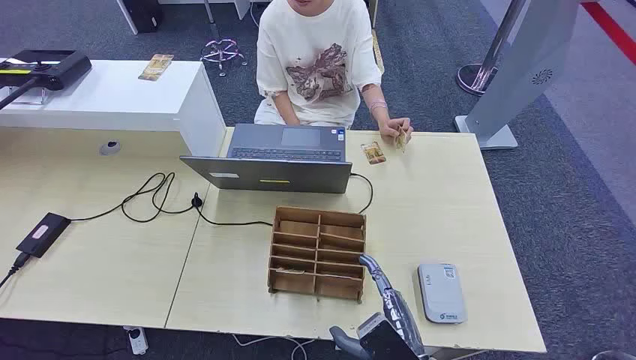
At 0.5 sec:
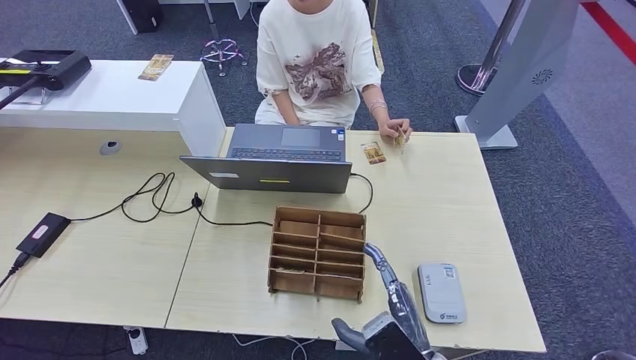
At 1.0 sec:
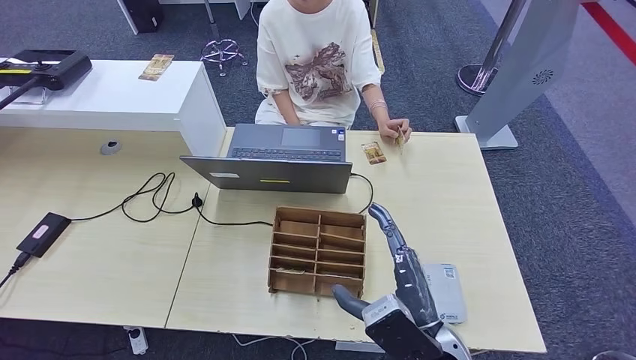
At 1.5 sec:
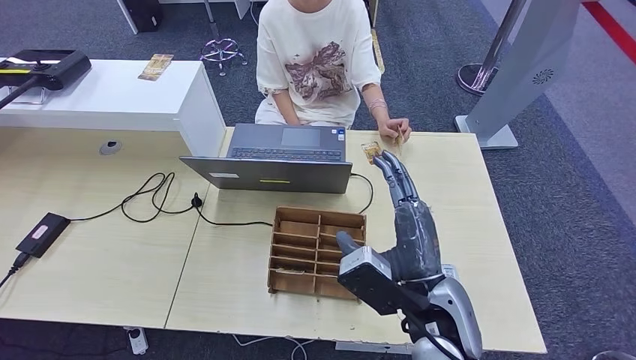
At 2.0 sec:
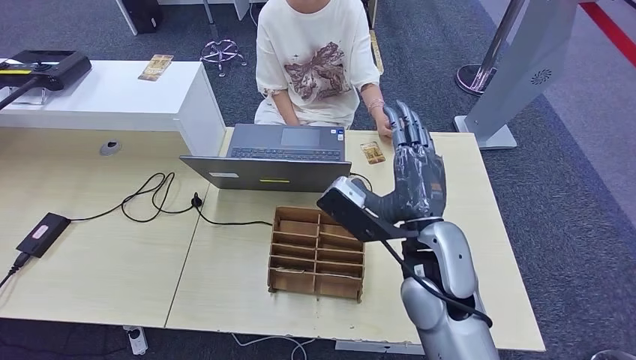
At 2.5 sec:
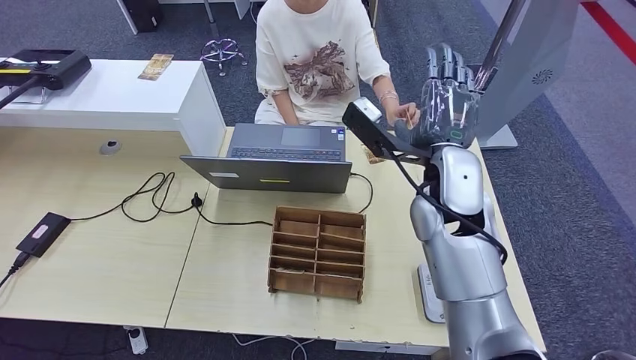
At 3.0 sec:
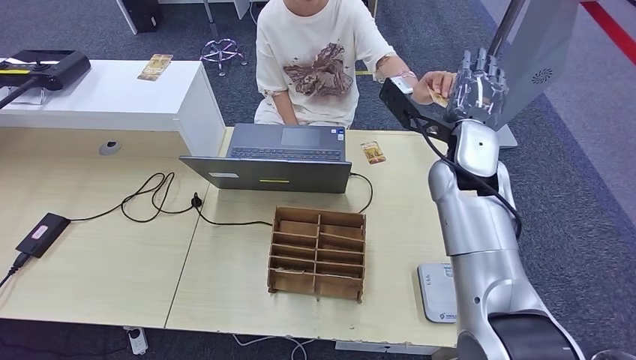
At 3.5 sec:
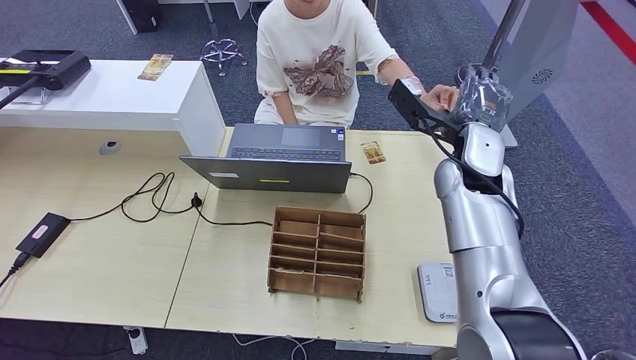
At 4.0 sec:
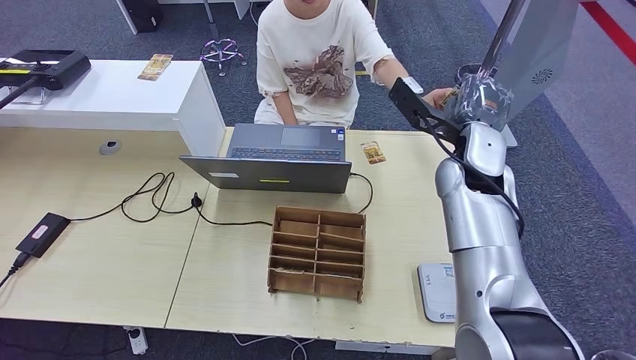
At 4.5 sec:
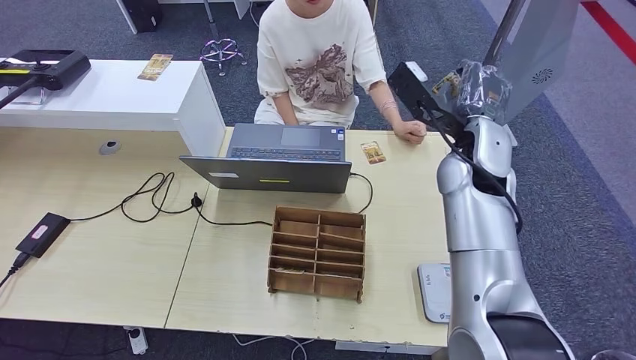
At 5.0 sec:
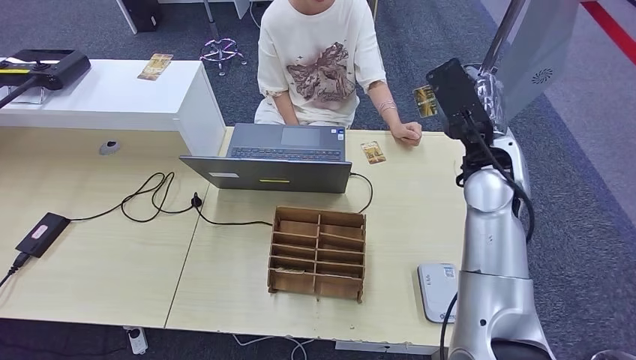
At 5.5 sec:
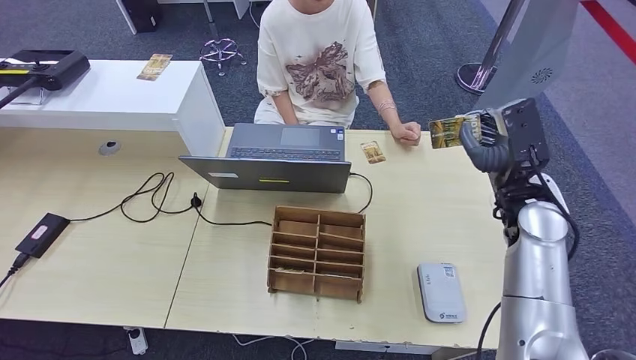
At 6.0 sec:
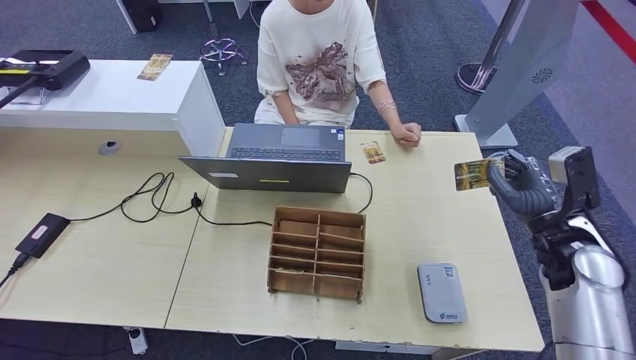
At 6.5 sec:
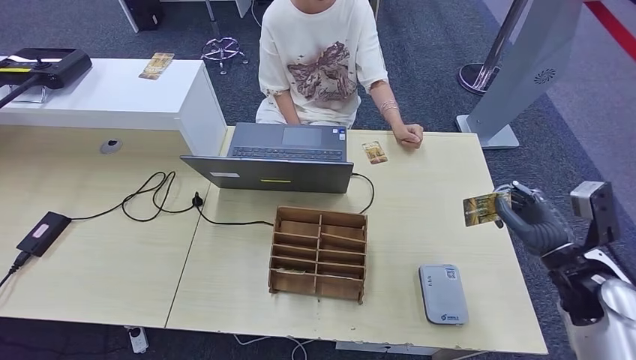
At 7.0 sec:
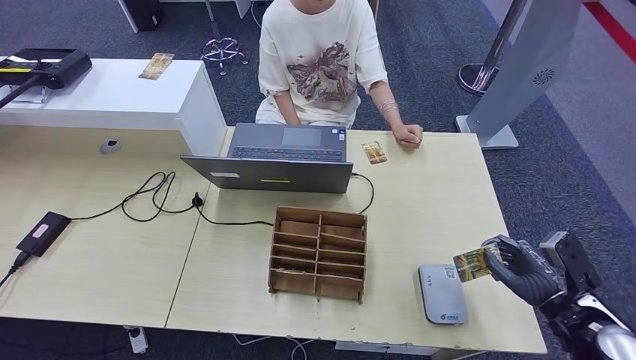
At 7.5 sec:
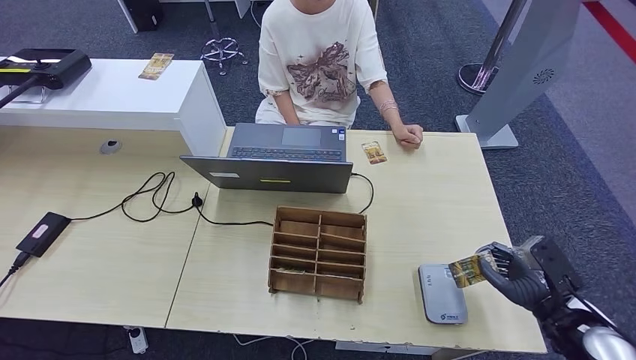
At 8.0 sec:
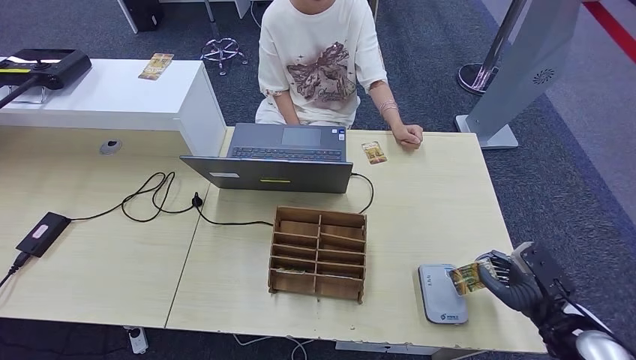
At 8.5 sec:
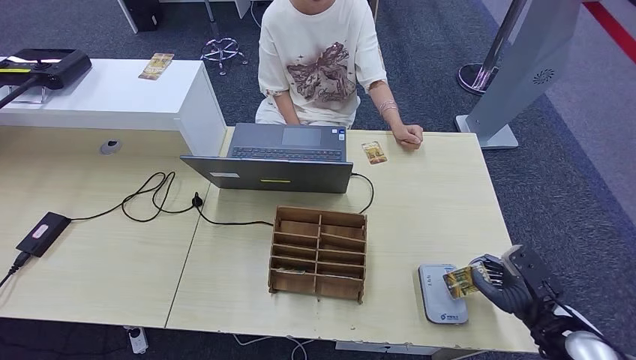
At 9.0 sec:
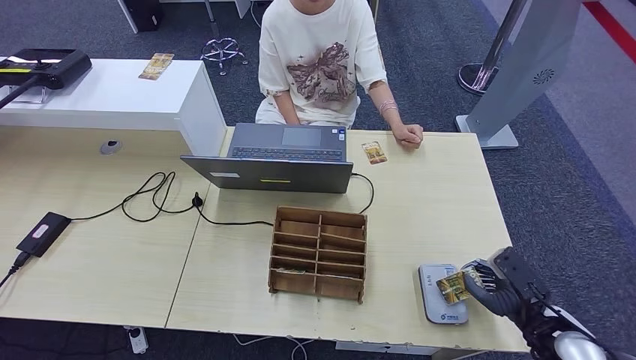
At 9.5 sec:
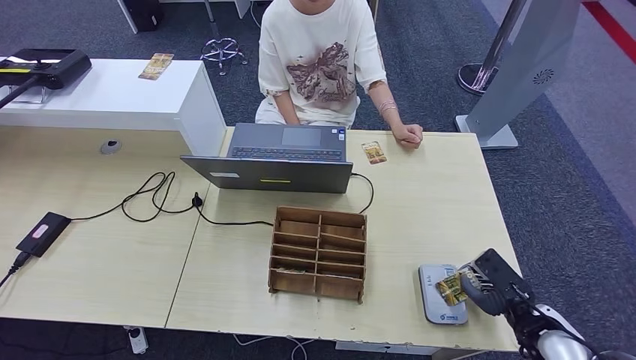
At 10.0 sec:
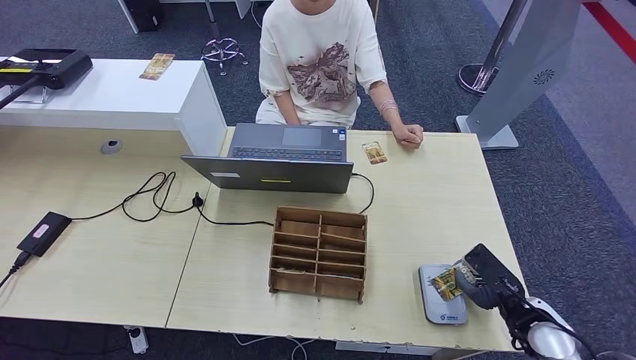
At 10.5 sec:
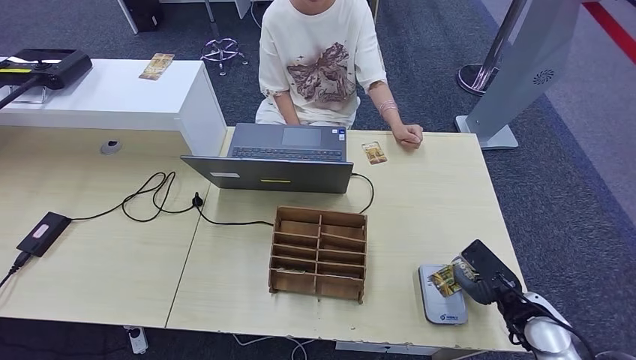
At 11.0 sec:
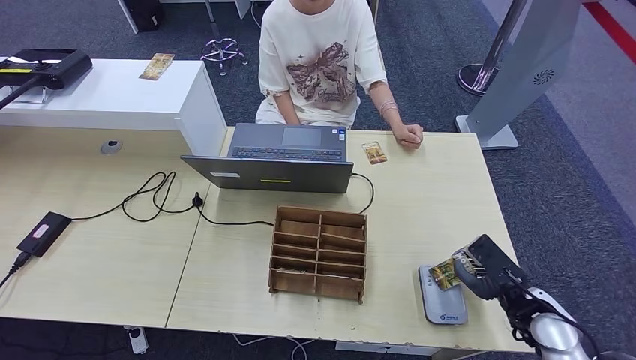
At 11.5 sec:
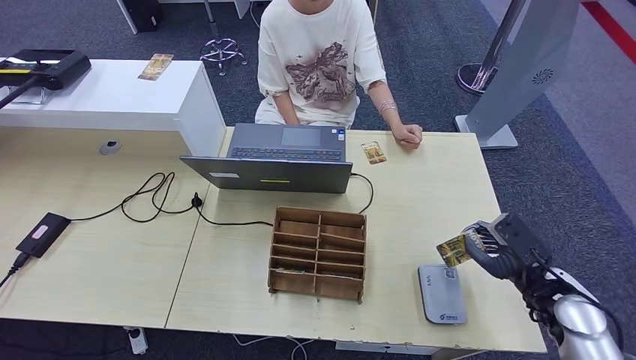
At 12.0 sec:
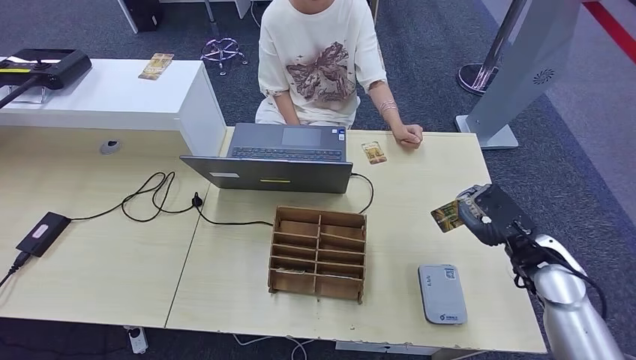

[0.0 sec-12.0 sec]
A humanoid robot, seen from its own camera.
Step, 0.0 sec to 6.5 sec: Take the ID card from the person's hand.
Step, 7.0 sec to 11.0 sec: Place the ID card on the card reader.
2.0 sec to 4.0 sec: The right hand heads forward and to the right, covering some 15 cm.
4.0 sec to 6.0 sec: The right hand travels to the right, downward and backward by approximately 25 cm.
6.0 sec to 8.0 sec: The right hand is displaced backward and downward by roughly 15 cm.
8.0 sec to 10.0 sec: The right hand changes place by approximately 5 cm.
10.0 sec to 12.0 sec: The right hand goes some 10 cm upward and forward.

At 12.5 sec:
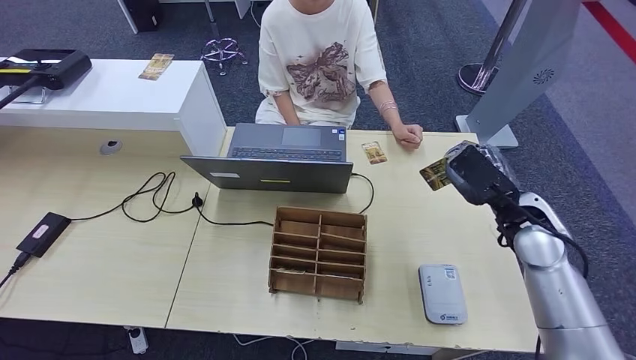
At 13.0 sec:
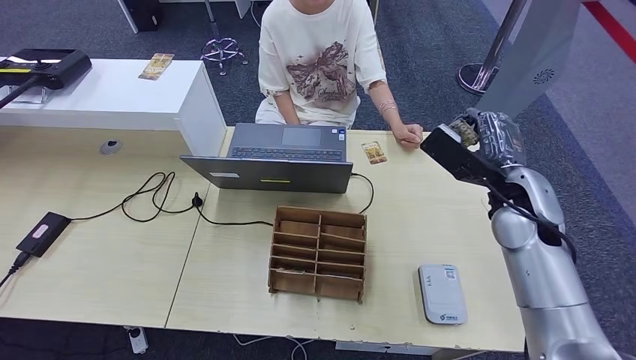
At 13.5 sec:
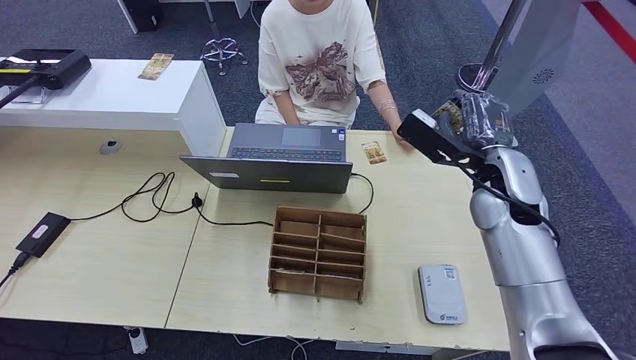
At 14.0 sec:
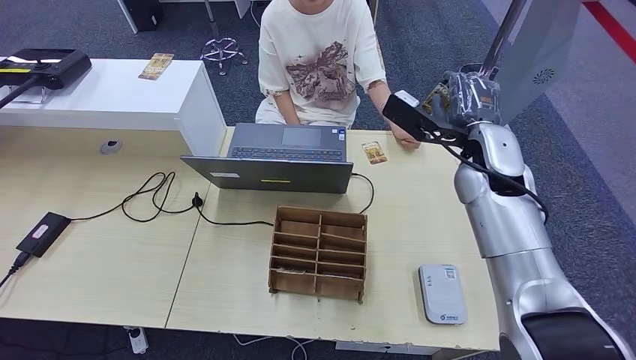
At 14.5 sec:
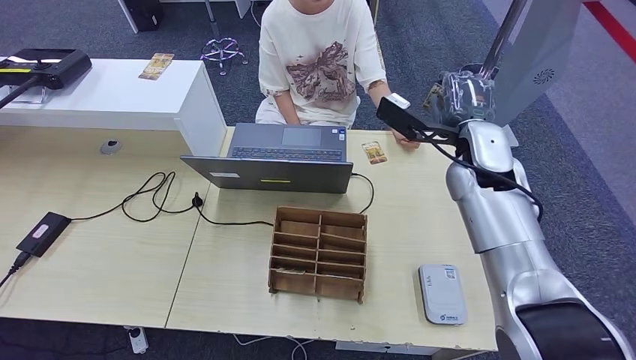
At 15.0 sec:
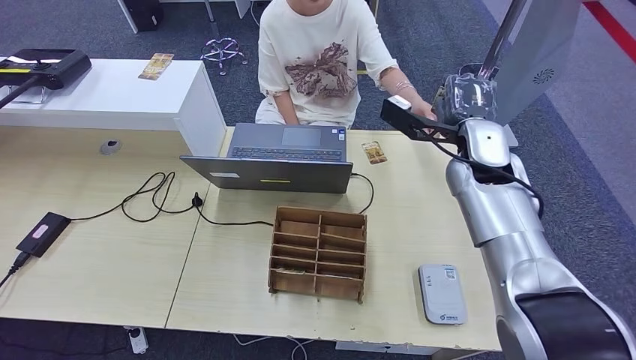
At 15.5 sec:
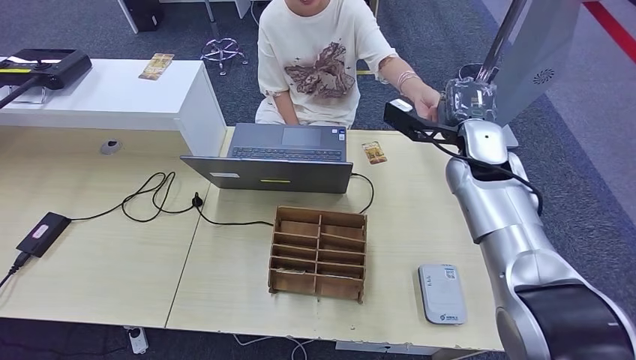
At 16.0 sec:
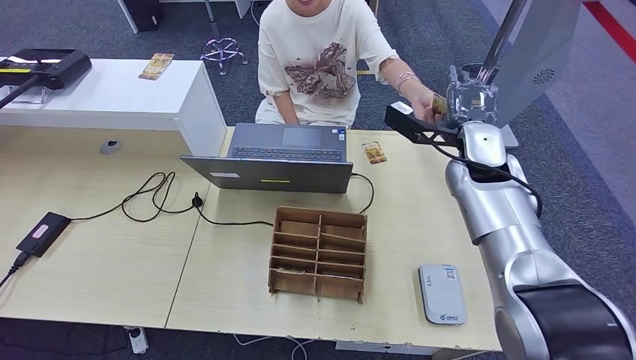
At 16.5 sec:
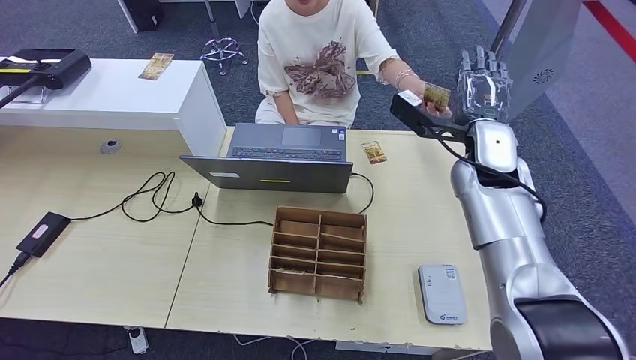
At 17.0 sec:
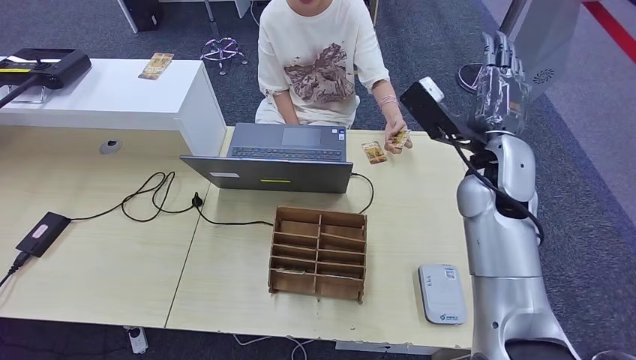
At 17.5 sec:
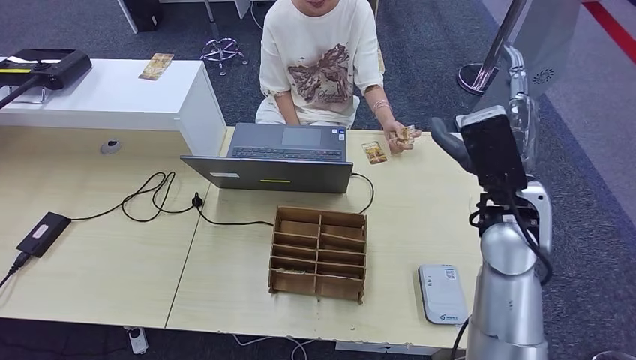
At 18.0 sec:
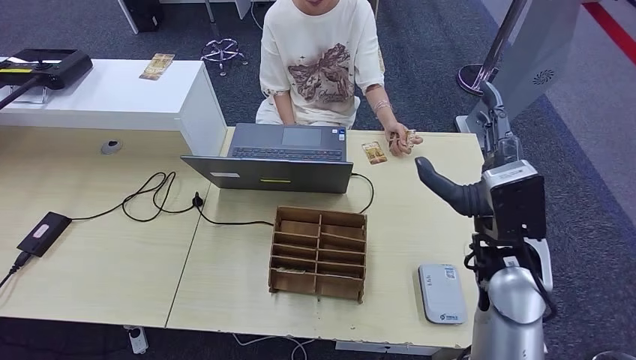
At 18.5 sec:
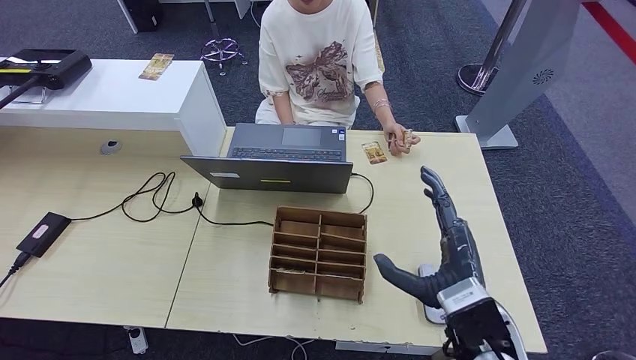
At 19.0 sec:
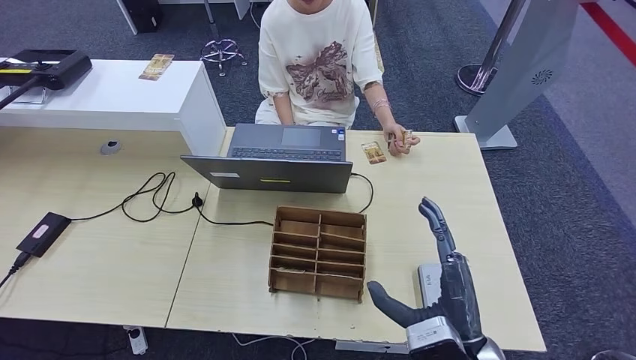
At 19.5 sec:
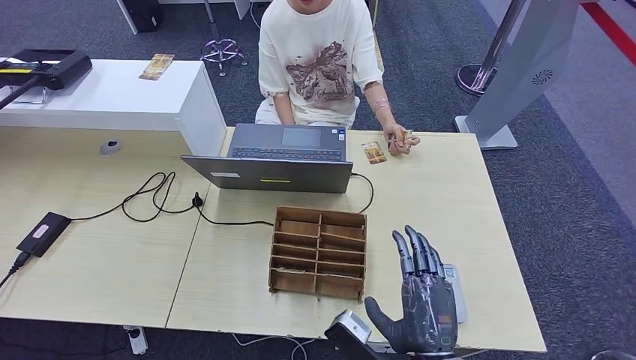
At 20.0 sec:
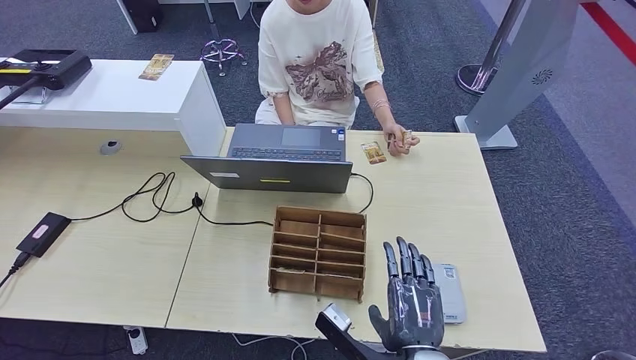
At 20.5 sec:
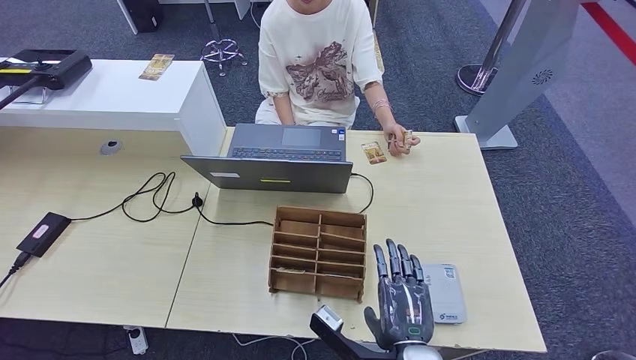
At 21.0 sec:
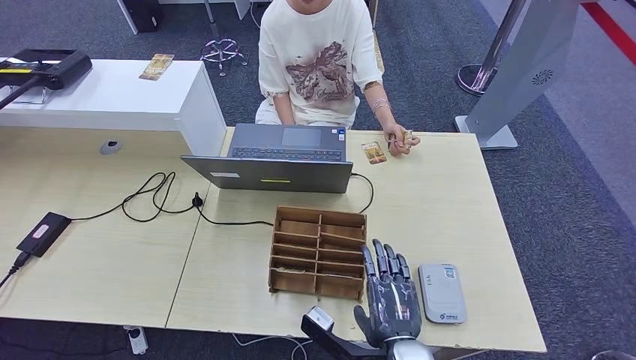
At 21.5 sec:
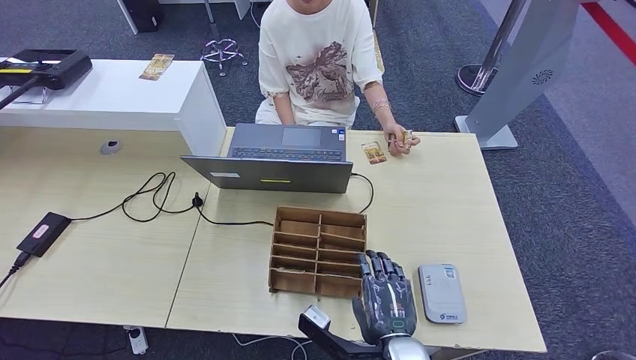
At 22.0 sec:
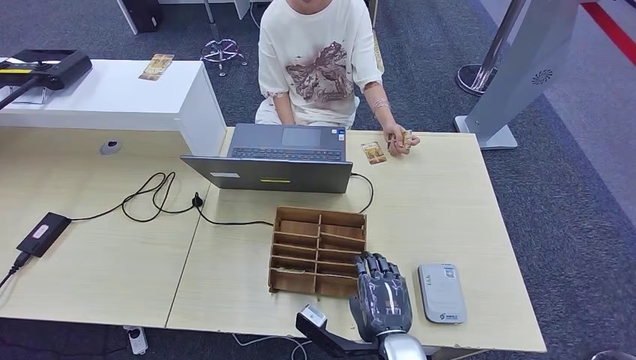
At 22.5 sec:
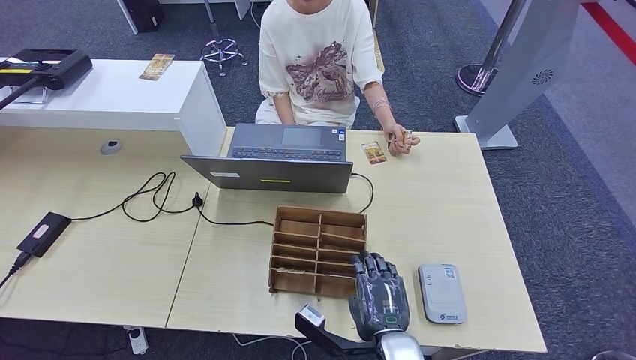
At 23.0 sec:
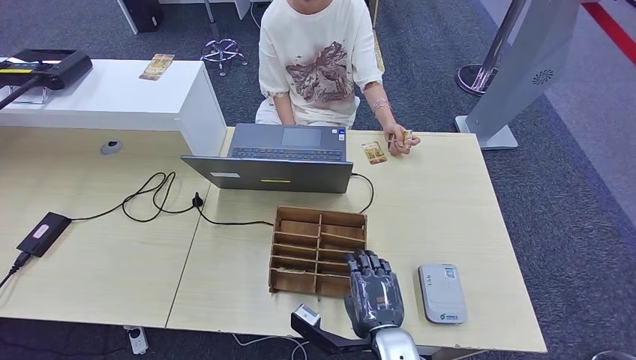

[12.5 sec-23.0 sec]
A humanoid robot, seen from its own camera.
Step, 12.5 sec to 17.0 sec: Hand the ID card to the person.
12.5 sec to 14.5 sec: The right hand travels to the left, forward and upward by about 15 cm.
14.5 sec to 16.5 sec: There are only small adjustments of the hands.
16.5 sec to 19.0 sec: The right hand moves backward, roughly 30 cm.
19.0 sec to 21.0 sec: The right hand is displaced to the left and downward by about 10 cm.
21.0 sec to 23.0 sec: The hands stay close to where they were, moving slightly.
